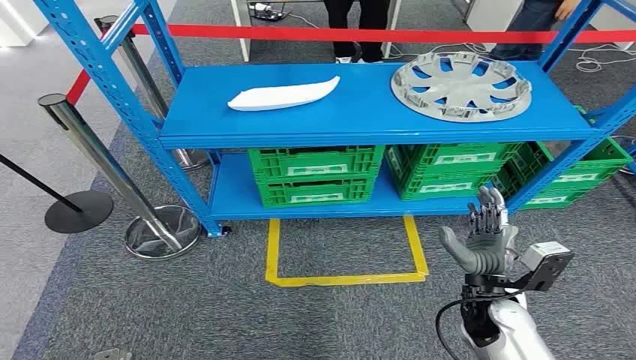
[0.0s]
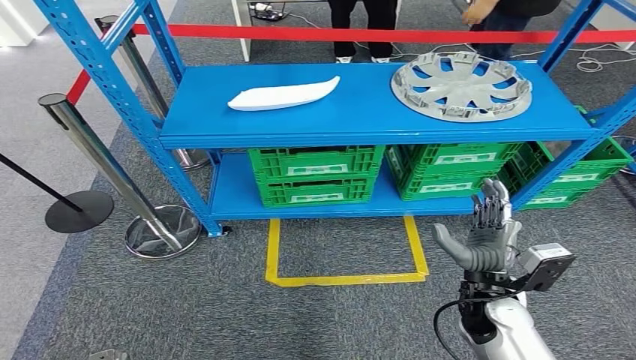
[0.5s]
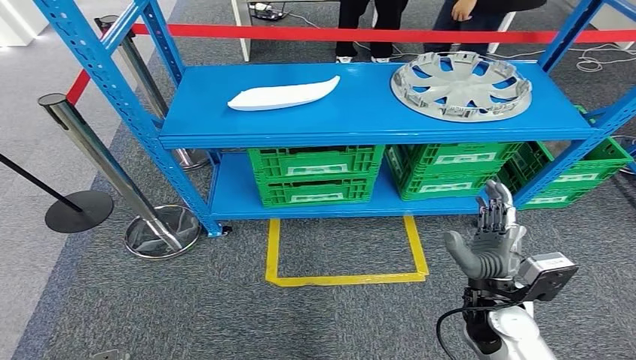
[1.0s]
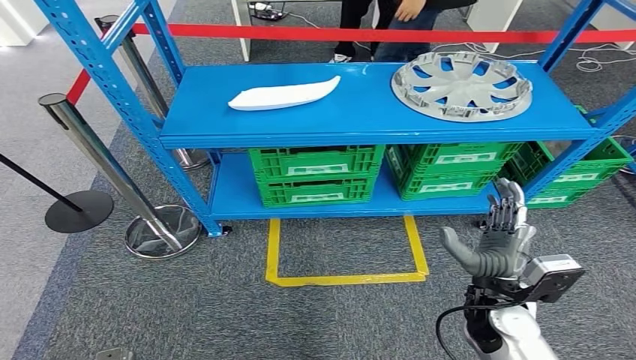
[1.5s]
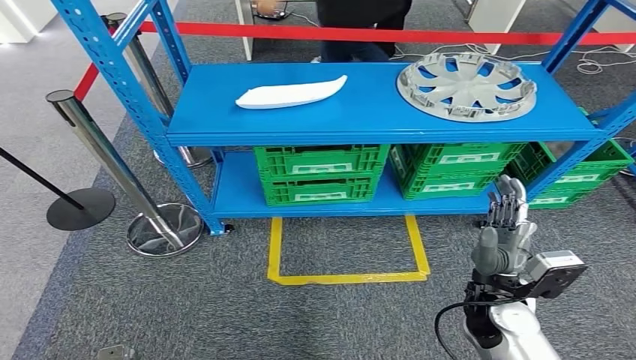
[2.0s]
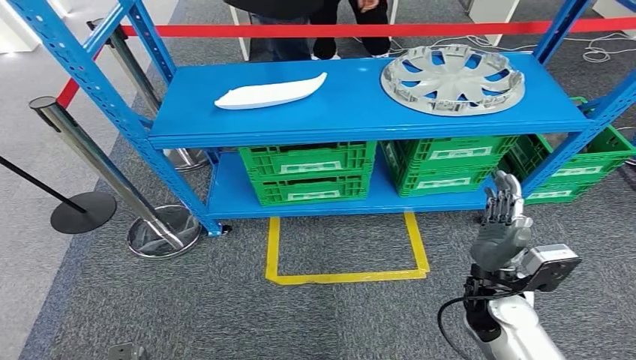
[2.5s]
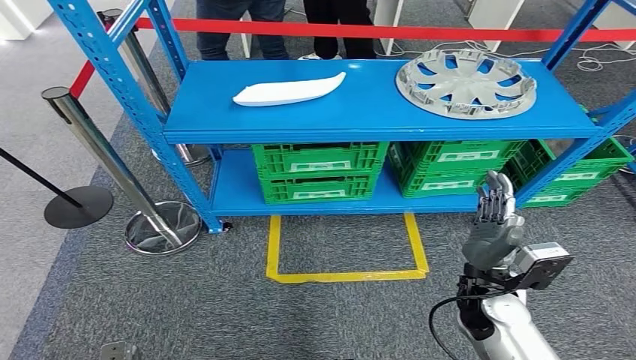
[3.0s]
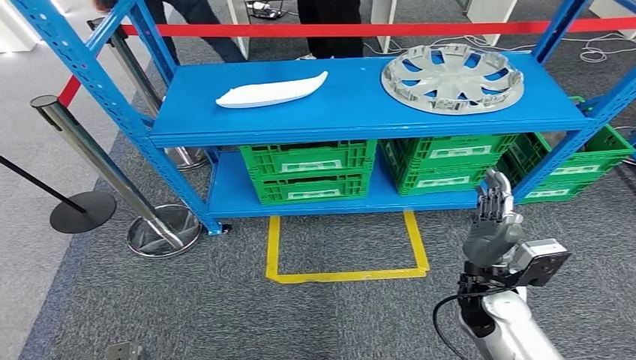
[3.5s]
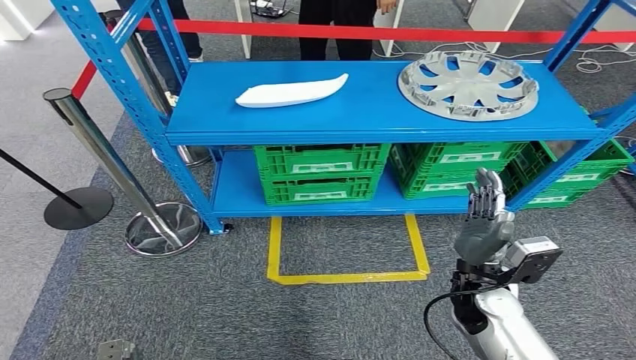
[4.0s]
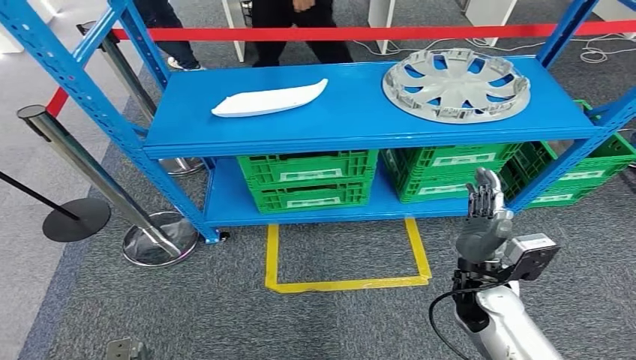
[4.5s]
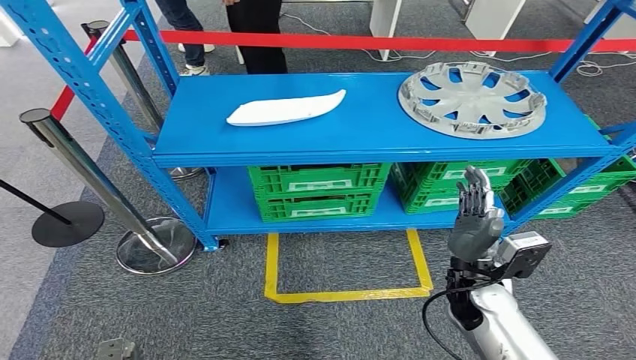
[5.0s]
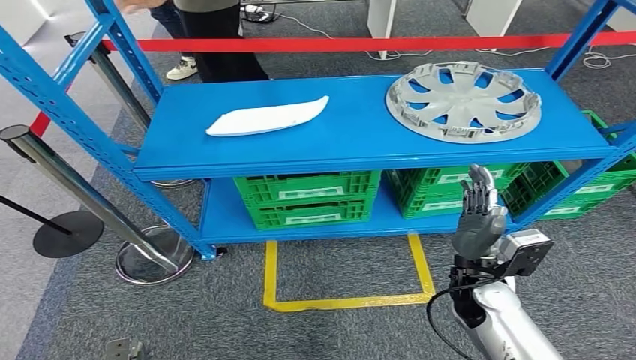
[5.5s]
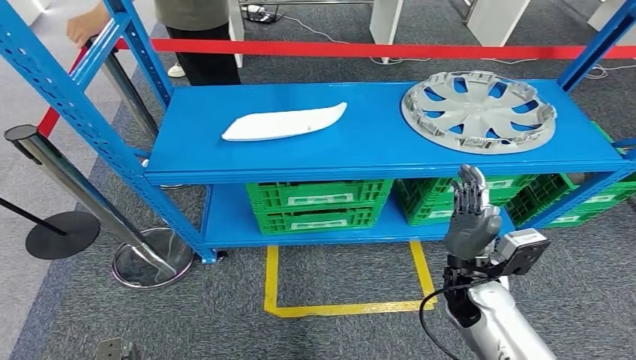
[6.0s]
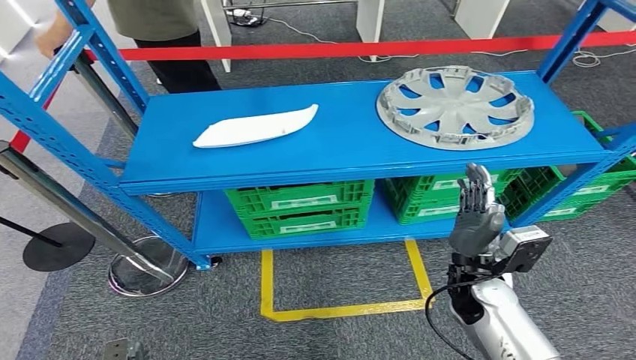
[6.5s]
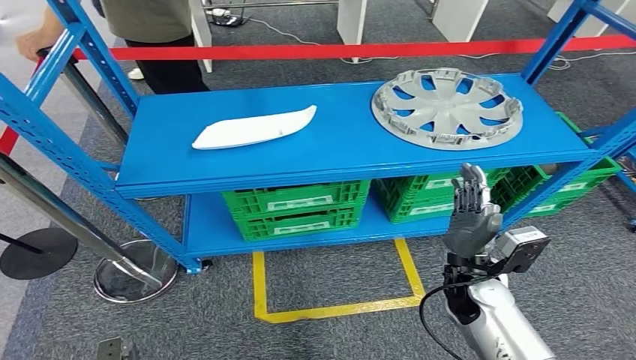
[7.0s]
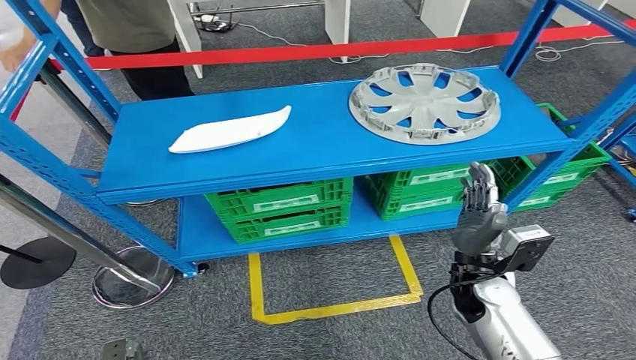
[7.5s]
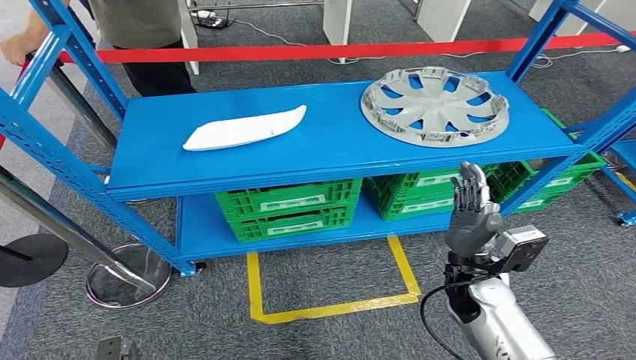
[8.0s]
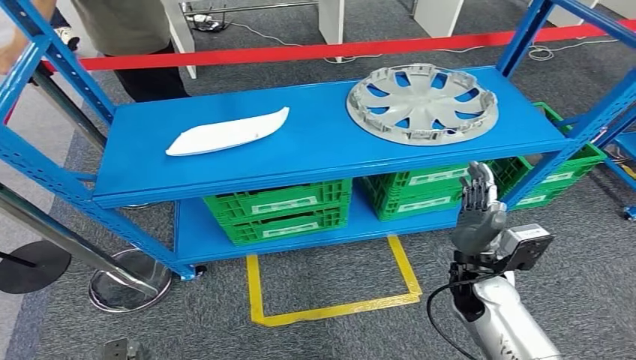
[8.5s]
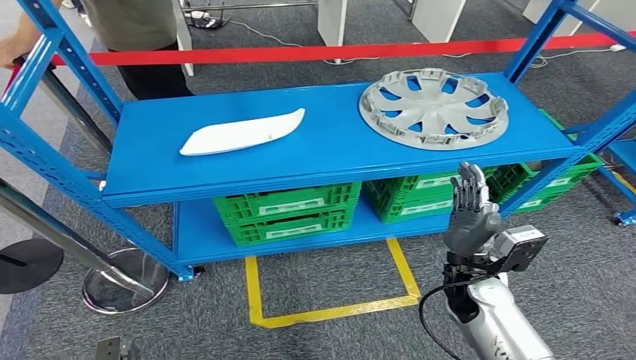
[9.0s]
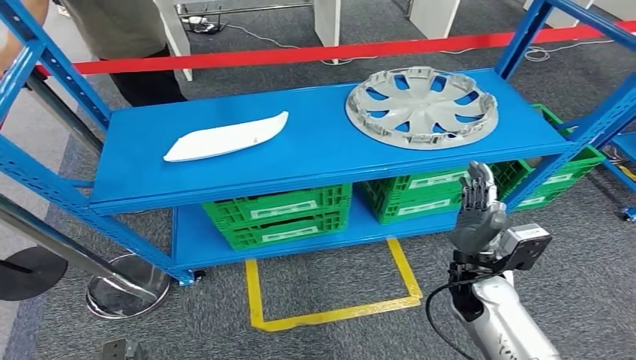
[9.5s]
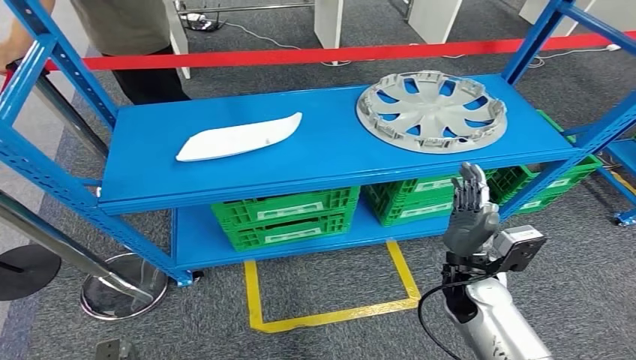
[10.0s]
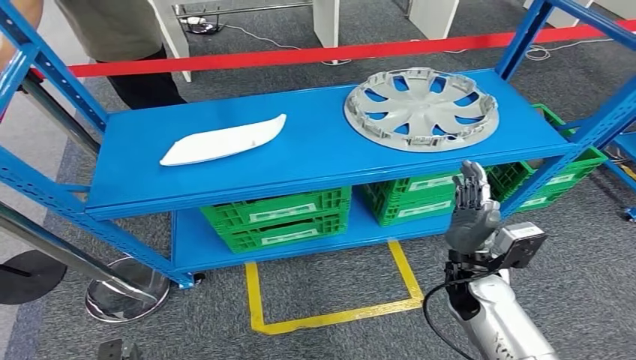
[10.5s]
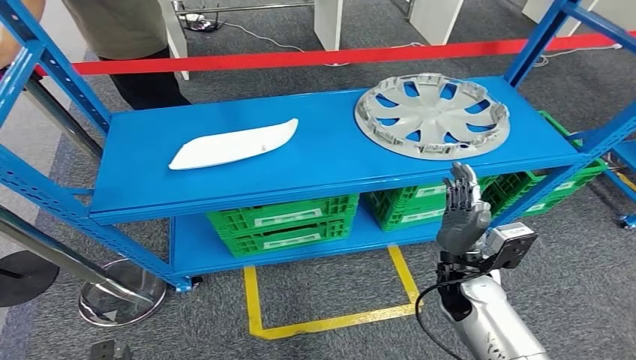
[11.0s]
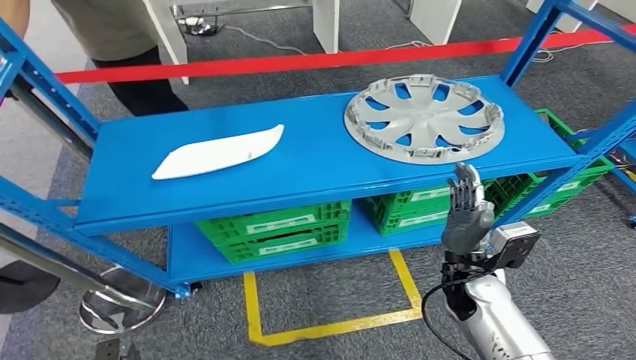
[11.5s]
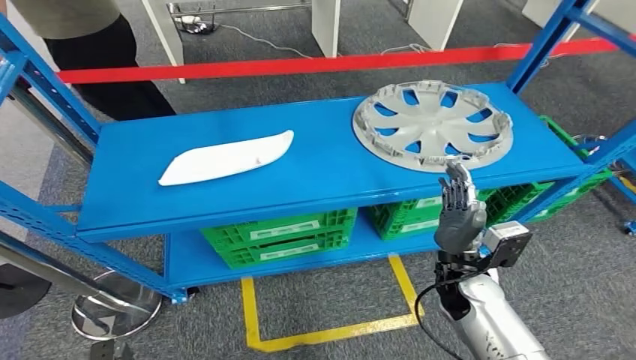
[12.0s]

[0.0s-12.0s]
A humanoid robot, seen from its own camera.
2.0s to 4.0s: The hands stay close to where they were, moving slightly.

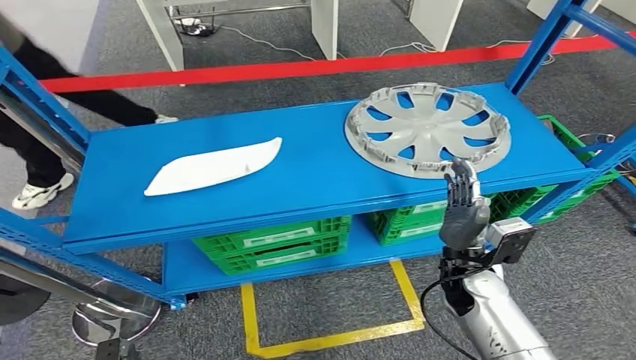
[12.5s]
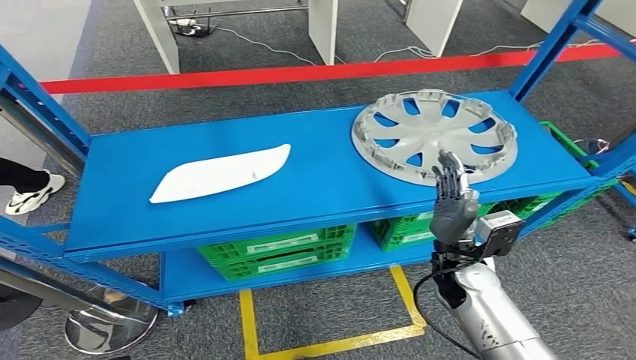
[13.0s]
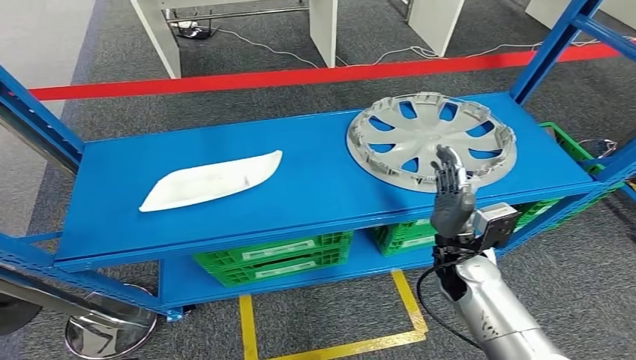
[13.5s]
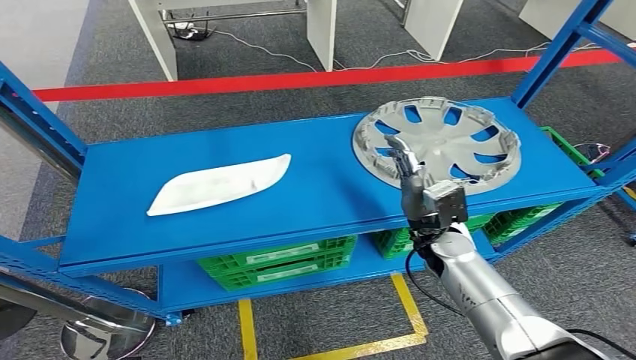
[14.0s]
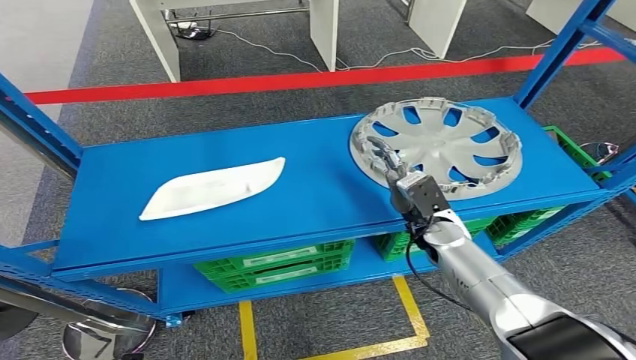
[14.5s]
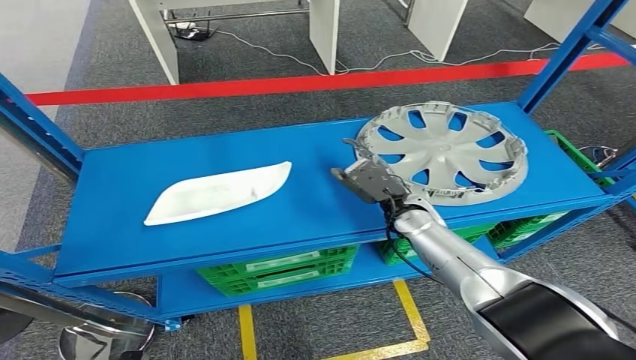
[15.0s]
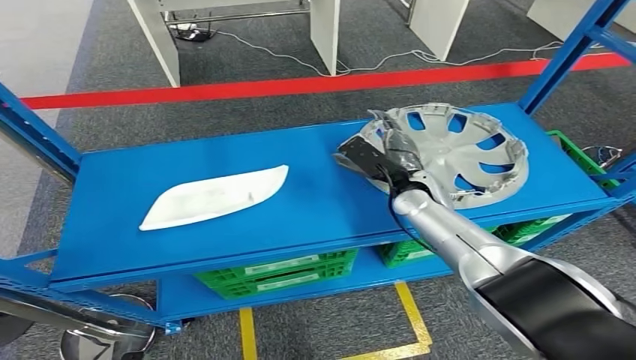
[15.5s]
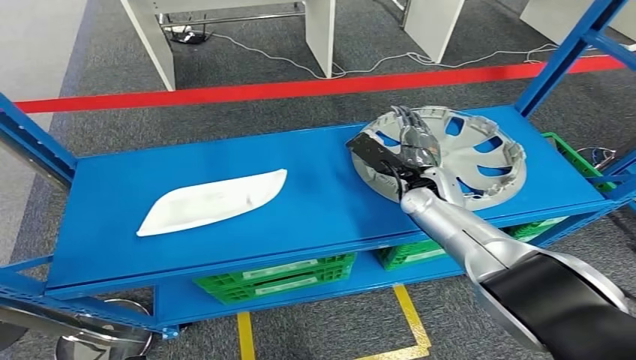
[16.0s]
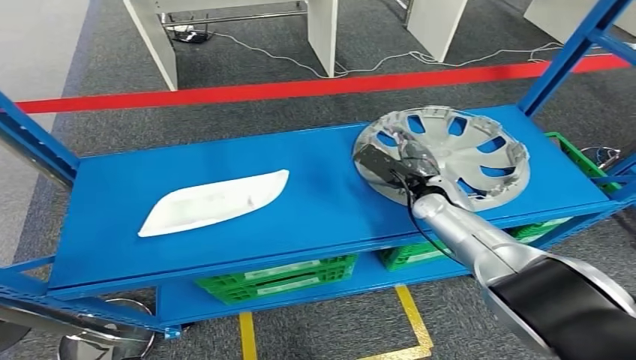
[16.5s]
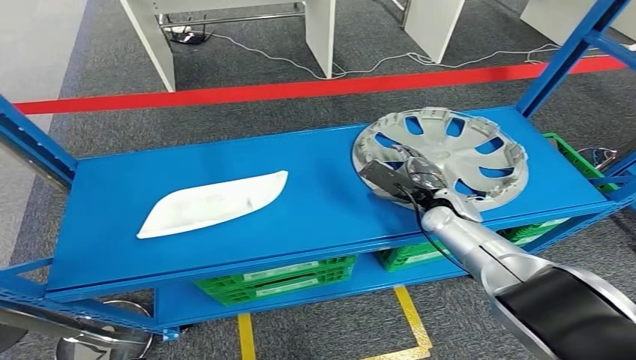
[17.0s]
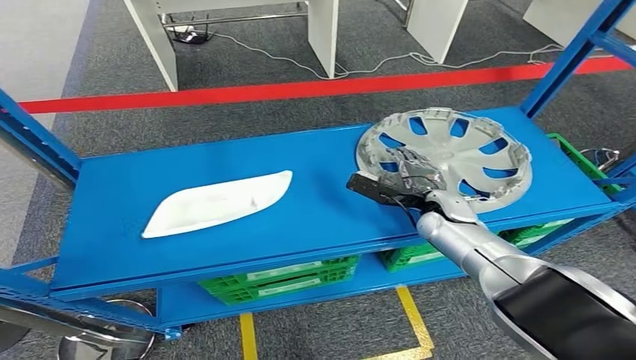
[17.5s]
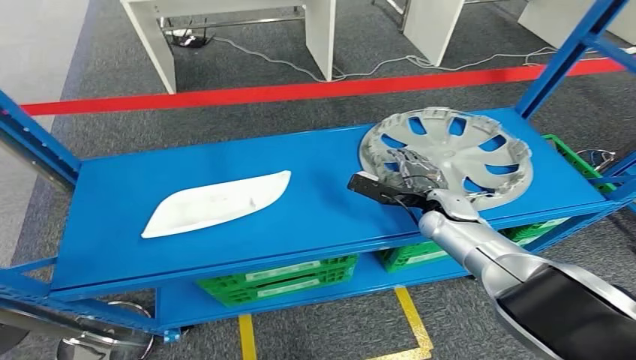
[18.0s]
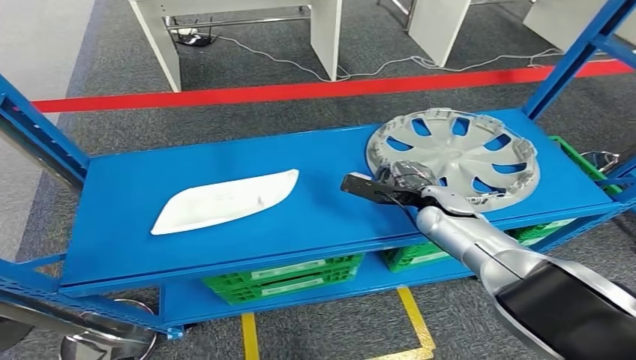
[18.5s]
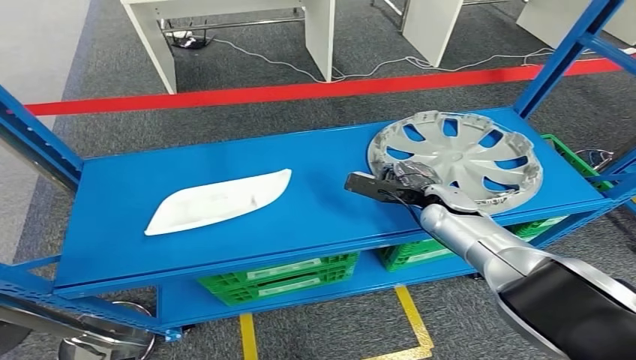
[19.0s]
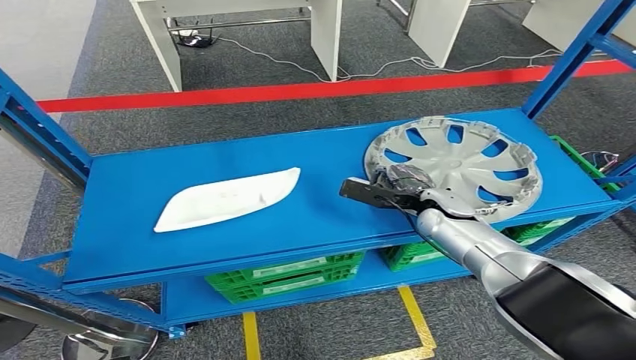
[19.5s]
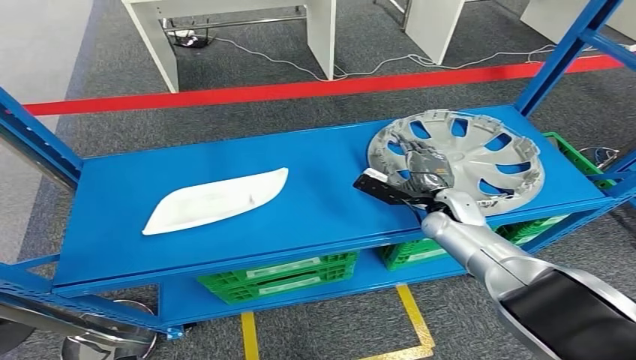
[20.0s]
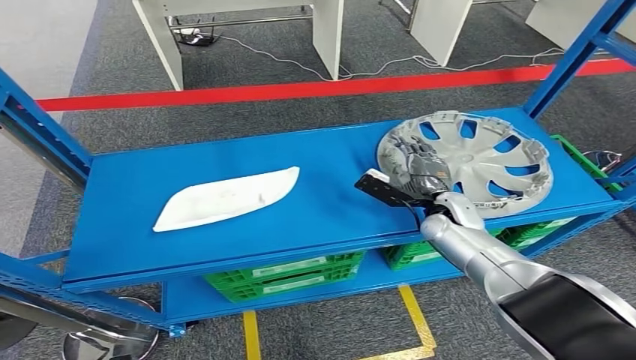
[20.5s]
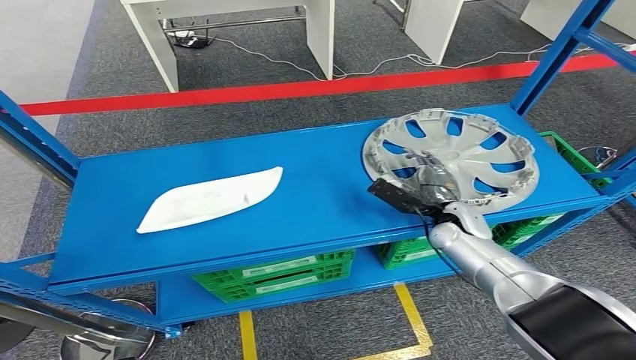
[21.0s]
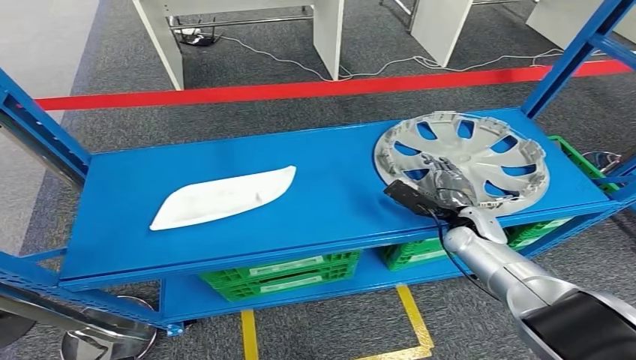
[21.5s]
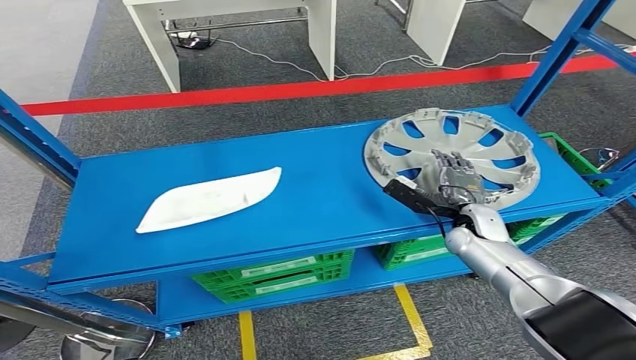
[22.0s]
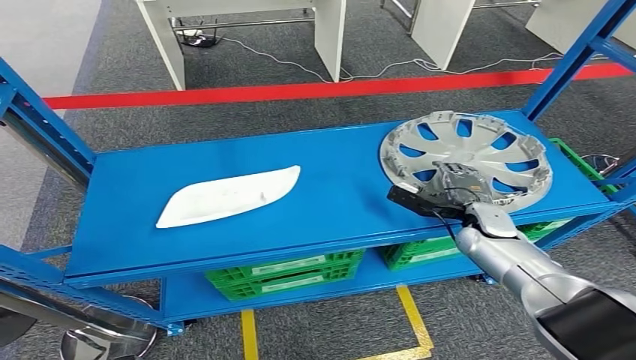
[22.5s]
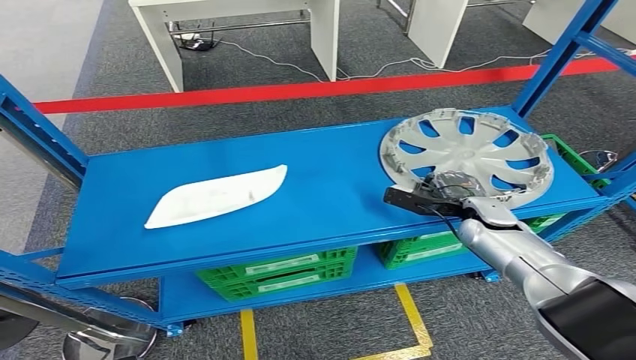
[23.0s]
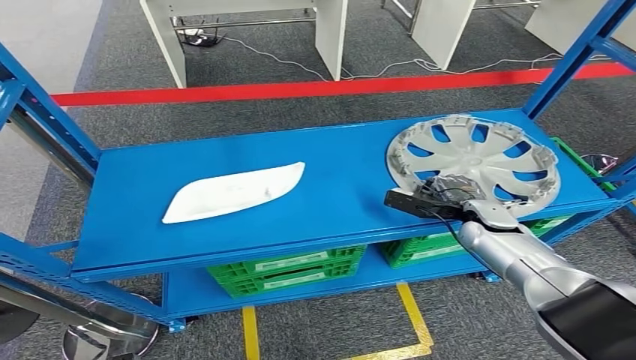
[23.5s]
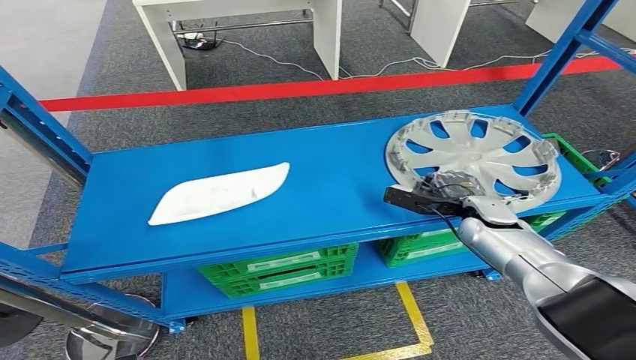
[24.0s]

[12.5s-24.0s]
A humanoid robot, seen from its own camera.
20.0s to 22.0s: The right hand changes place by some 5 cm.
